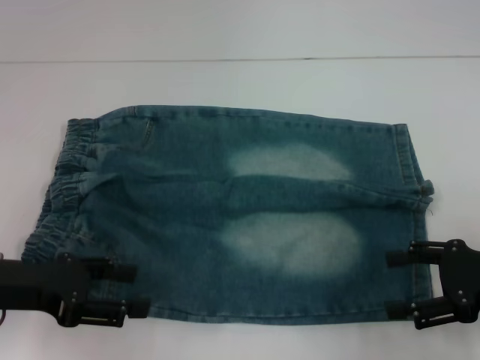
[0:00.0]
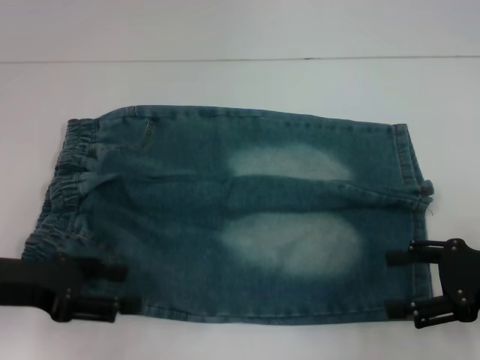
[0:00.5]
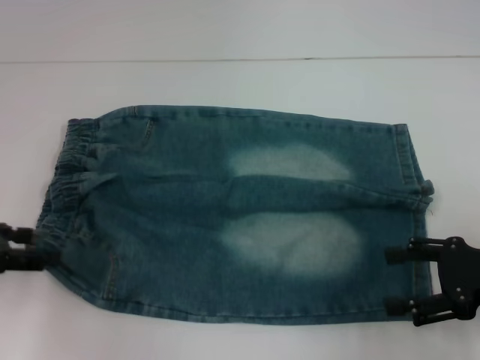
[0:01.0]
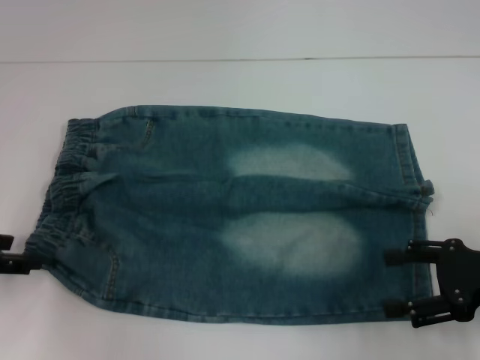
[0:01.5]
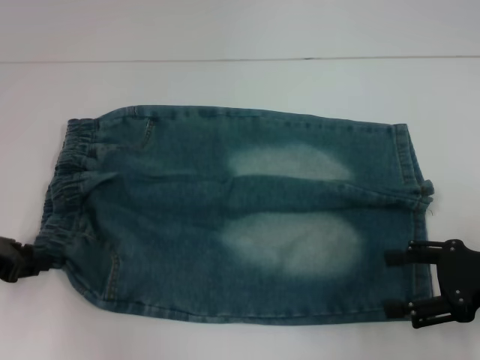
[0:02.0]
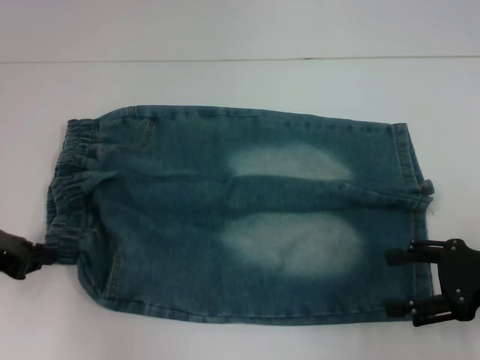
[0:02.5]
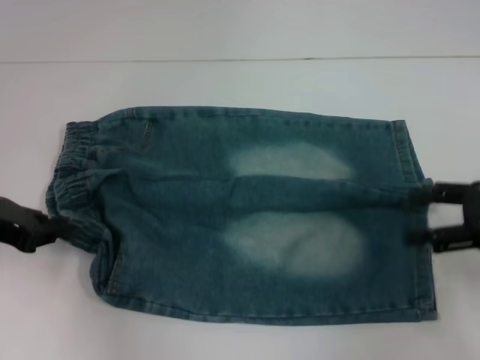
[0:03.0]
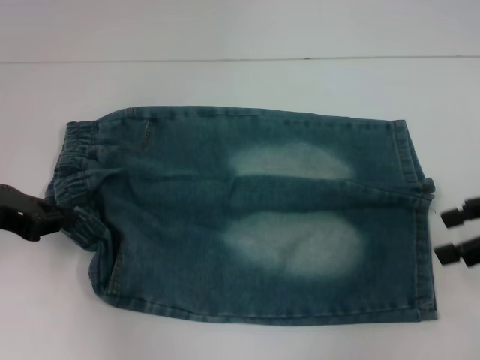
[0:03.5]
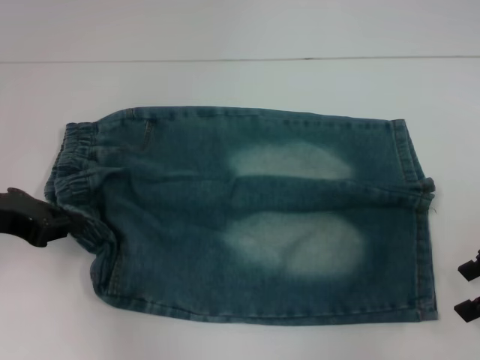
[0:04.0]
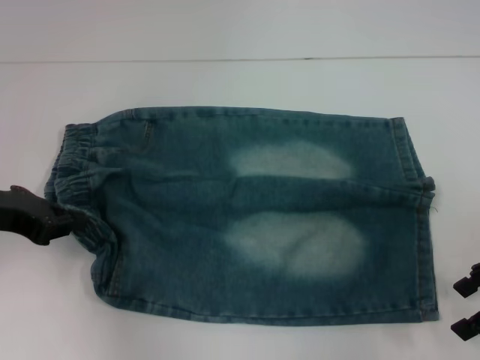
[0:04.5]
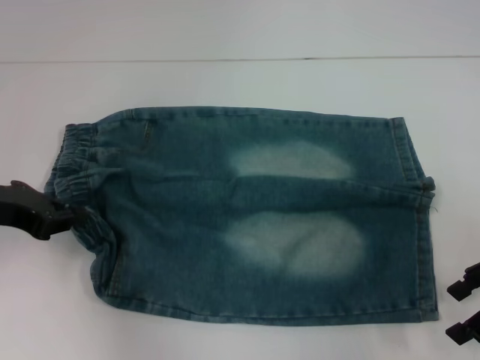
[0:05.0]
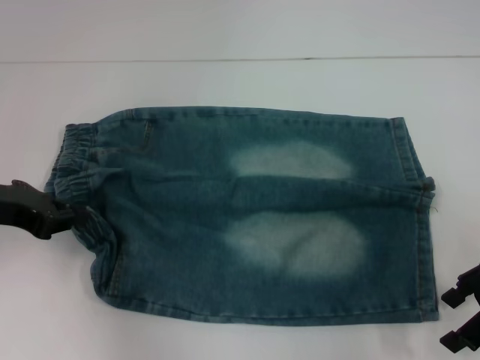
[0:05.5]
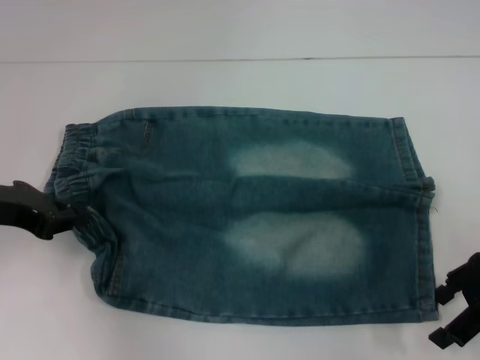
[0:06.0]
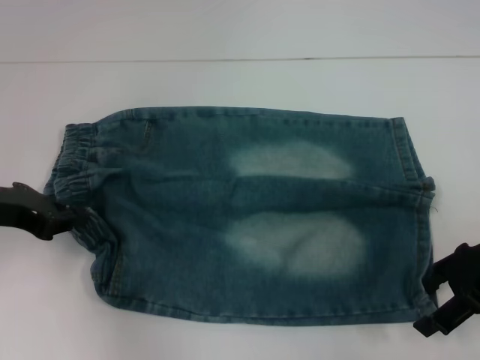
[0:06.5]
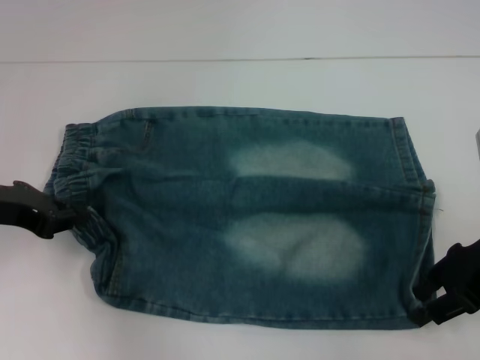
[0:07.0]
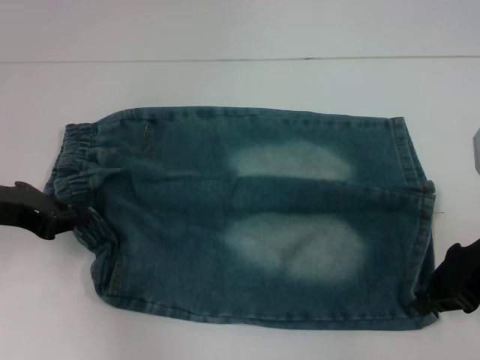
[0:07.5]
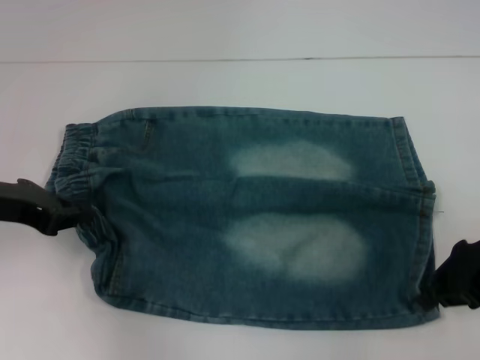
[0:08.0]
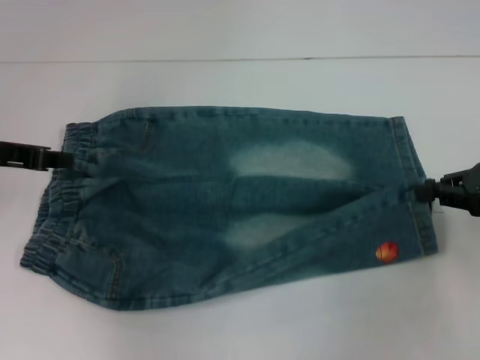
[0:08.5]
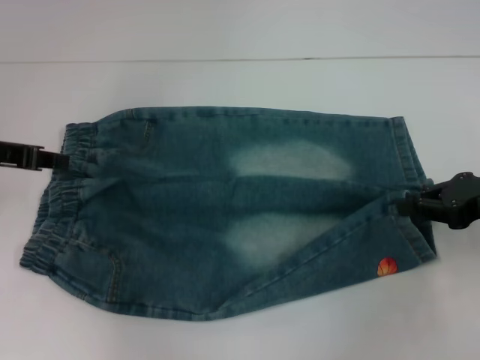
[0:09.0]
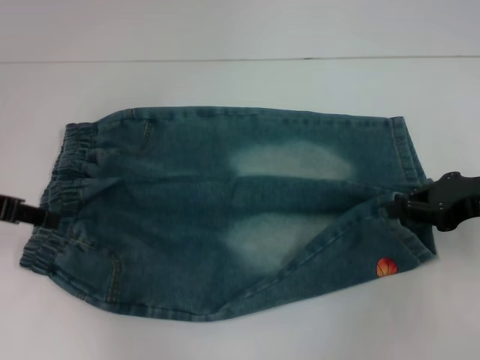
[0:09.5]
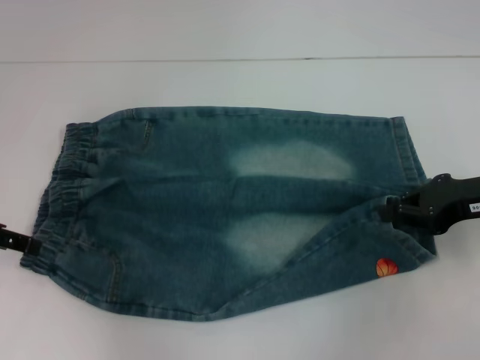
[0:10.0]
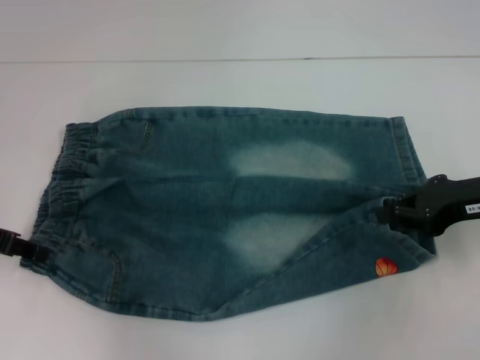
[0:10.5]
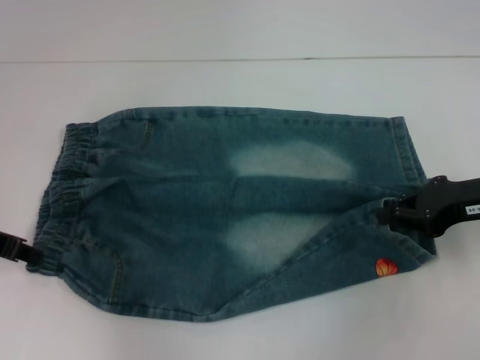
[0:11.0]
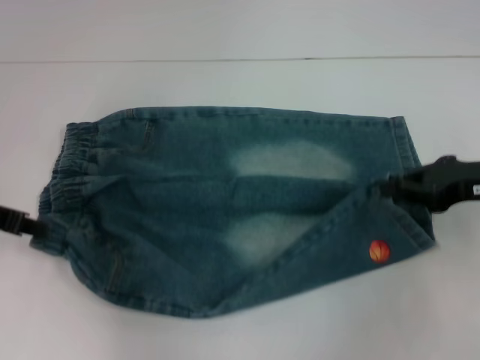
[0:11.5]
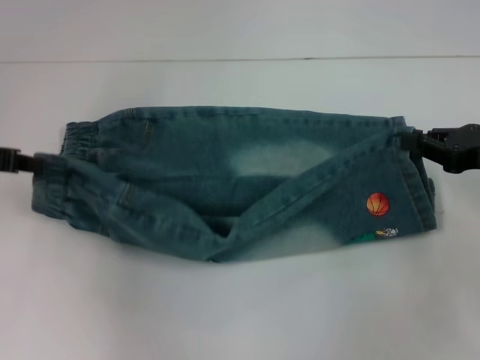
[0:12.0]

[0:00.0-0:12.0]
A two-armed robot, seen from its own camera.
Step, 0:00.0 to 0:02.0: Hold the lower left waistband with your left hand.
Step, 0:02.5 to 0:07.5: Grab the lower right pant leg with your right hand.
0:00.0 to 0:02.0: The left gripper changes place by some 5 cm, and closes.
0:02.0 to 0:04.0: The right gripper is displaced upward by approximately 5 cm. Meanwhile the left gripper shifts by roughly 5 cm, and closes.
0:04.0 to 0:06.0: There are only small adjustments of the grippers.
0:06.0 to 0:08.0: The right gripper closes up.
0:08.0 to 0:10.0: The left gripper opens up.
0:10.0 to 0:12.0: The left gripper closes.

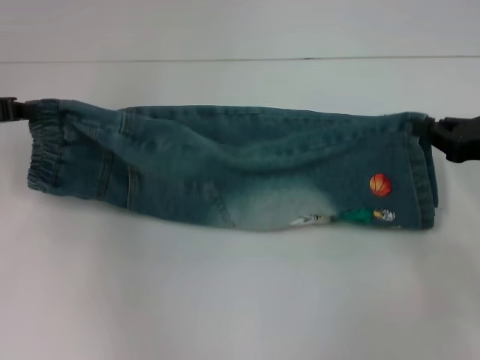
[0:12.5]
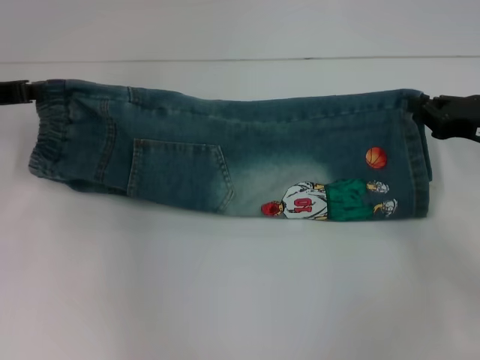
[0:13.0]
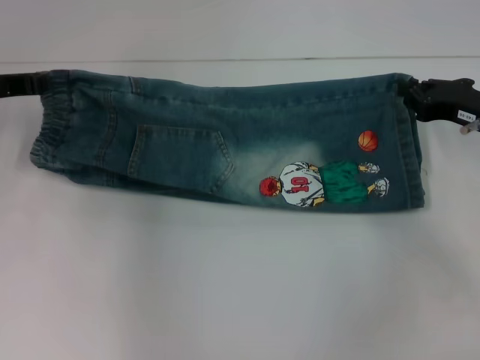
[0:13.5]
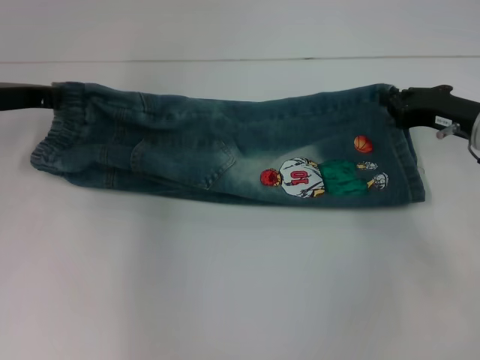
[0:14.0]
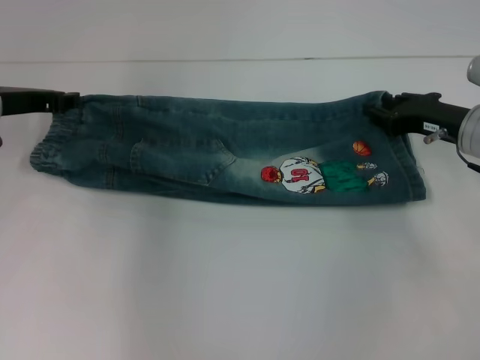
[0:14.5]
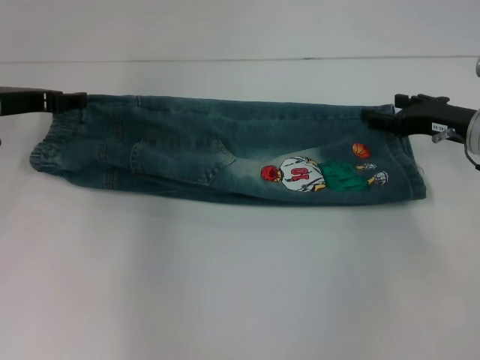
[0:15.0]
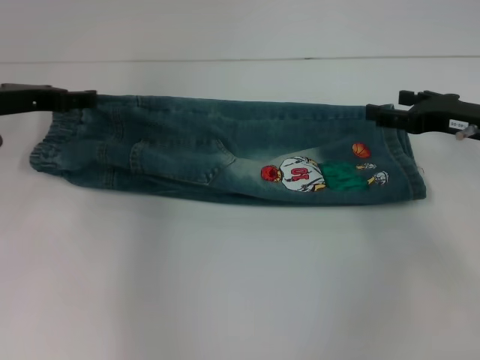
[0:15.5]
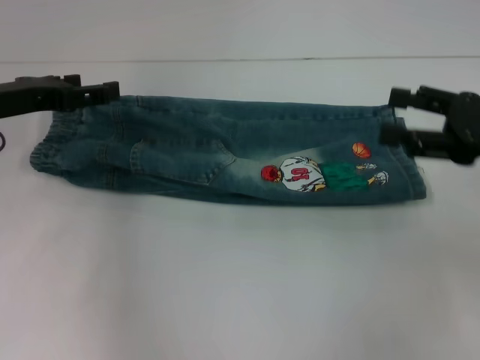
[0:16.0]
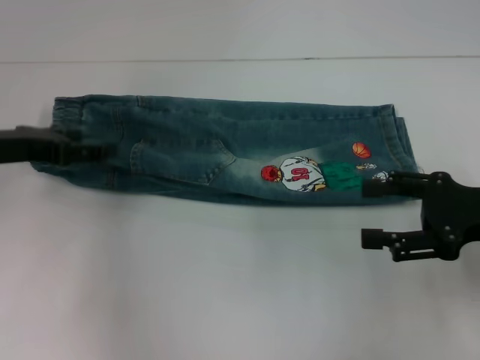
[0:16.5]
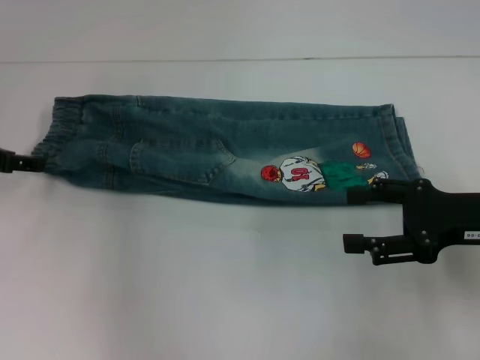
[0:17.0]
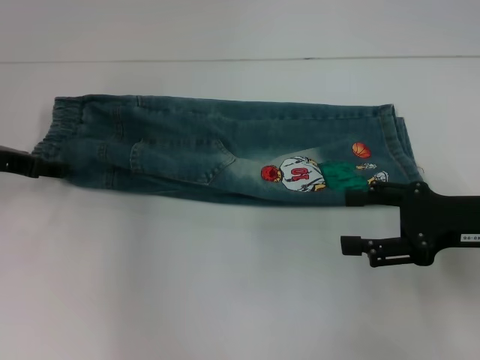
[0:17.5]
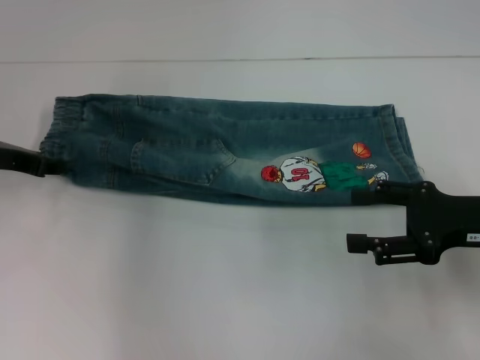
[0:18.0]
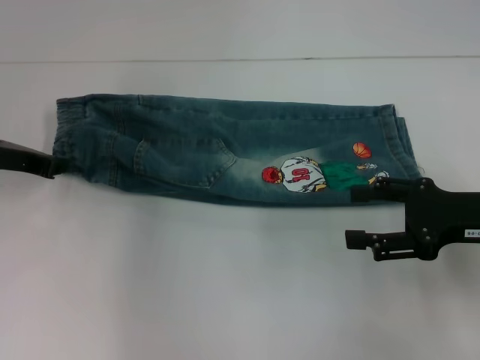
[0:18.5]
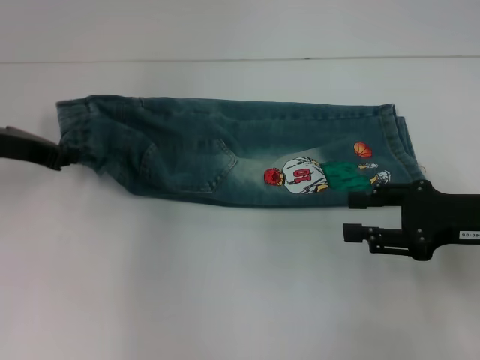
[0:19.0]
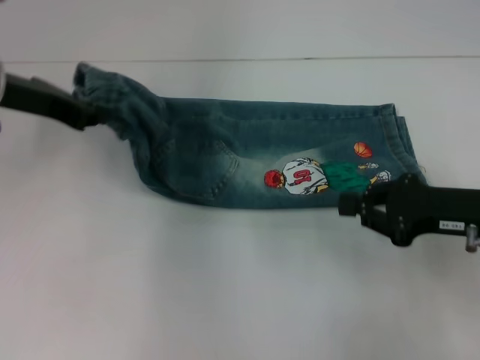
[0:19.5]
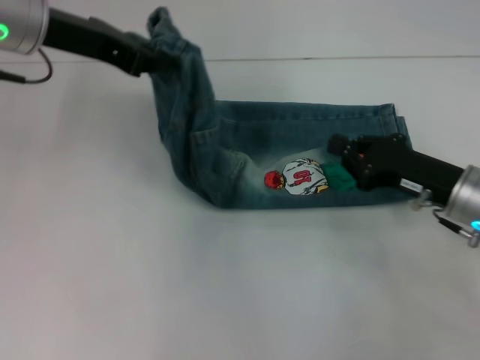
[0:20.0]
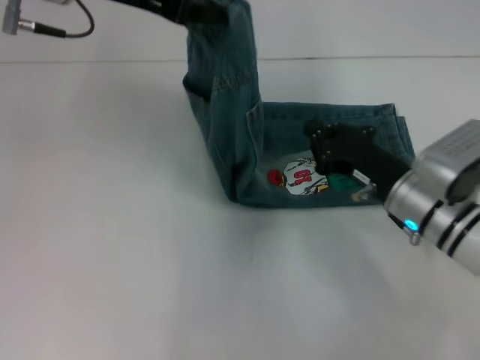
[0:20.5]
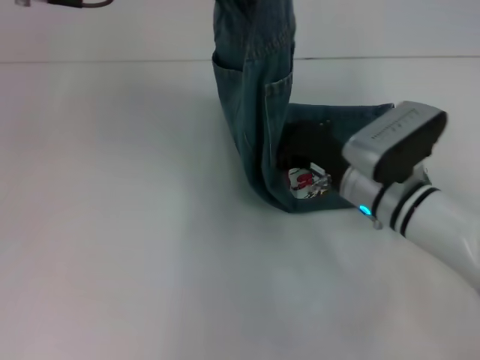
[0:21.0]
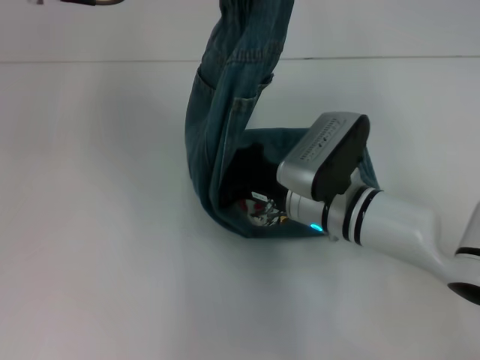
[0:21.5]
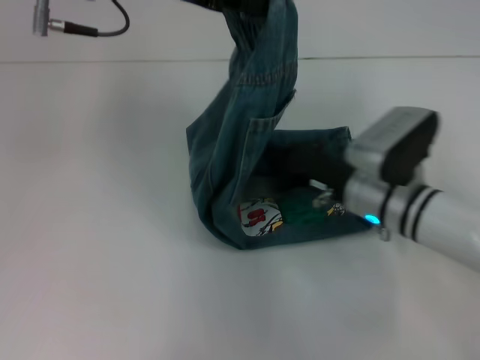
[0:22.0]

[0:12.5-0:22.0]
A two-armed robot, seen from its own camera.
Step, 0:15.0 to 0:18.5: Hold the waistband with your left hand.
Step, 0:19.0 to 0:21.5: Press the middle of the pants with your right hand.
0:12.5 to 0:14.5: The right gripper heads to the left and forward, covering roughly 10 cm, while the left gripper ends up about 5 cm from where it was.
0:14.5 to 0:16.5: The right gripper moves backward, some 10 cm, and opens. The left gripper heads backward, covering approximately 5 cm, and opens up.
0:18.0 to 0:20.0: The right gripper moves roughly 5 cm, and closes its fingers; the left gripper travels upward and to the right by roughly 15 cm, and closes its fingers.
0:20.0 to 0:22.0: The left gripper moves approximately 5 cm, while the right gripper moves to the left, roughly 10 cm.

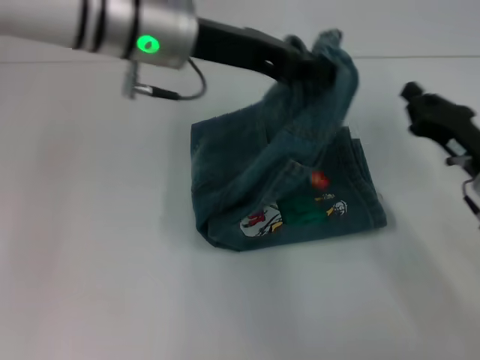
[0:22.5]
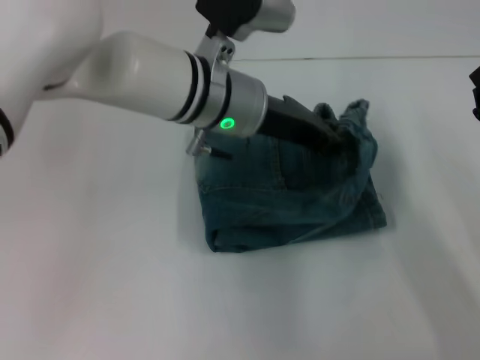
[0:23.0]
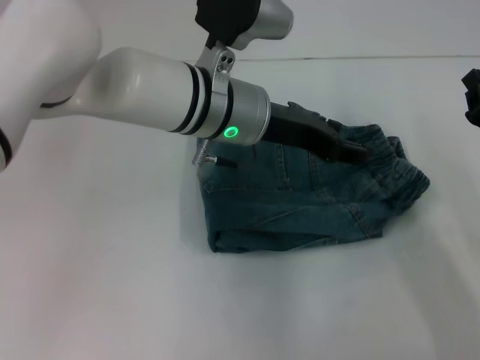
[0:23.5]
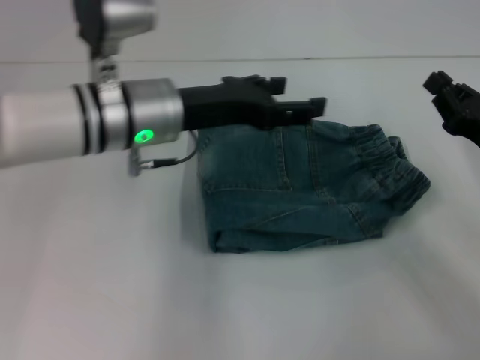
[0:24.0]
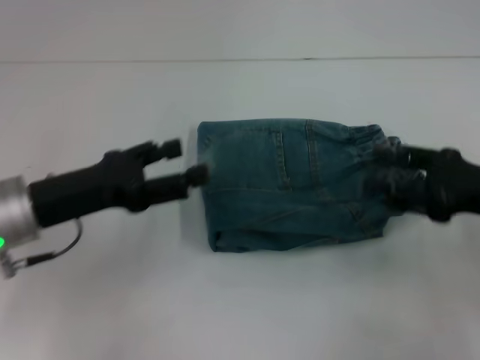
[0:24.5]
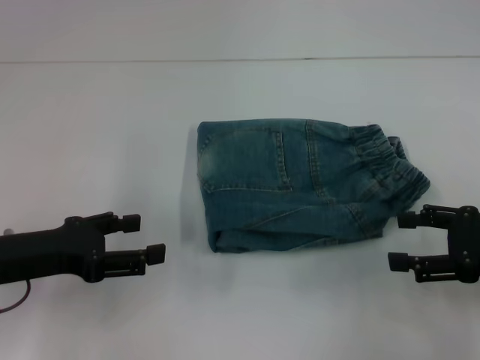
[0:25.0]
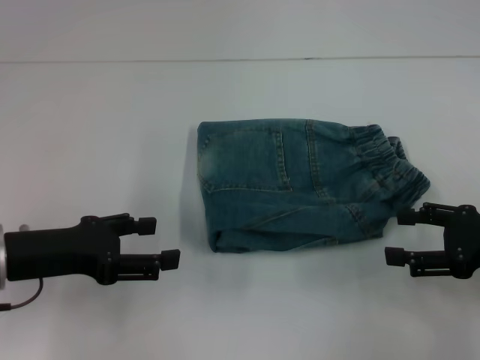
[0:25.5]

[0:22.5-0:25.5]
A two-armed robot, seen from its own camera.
0:22.5 to 0:24.0: The left gripper heads downward, covering approximately 10 cm, and opens up.
0:24.0 to 0:25.5: The right gripper opens up; the left gripper shifts about 20 cm to the left and backward.

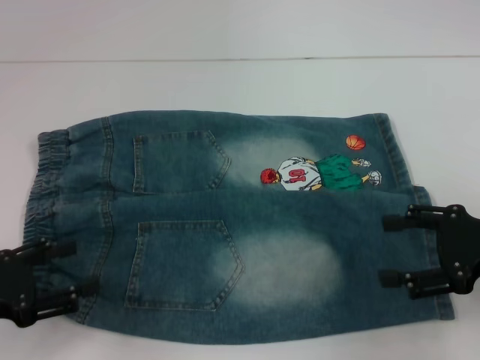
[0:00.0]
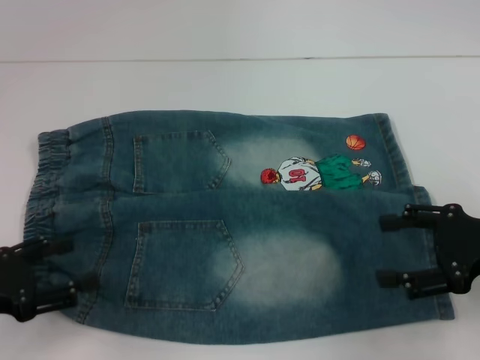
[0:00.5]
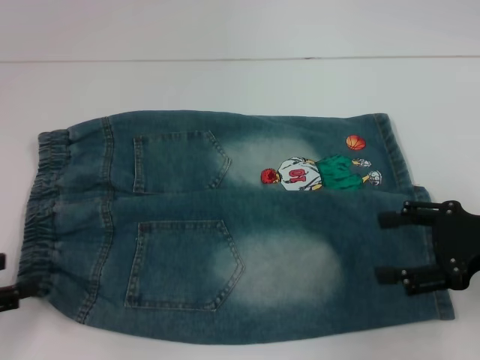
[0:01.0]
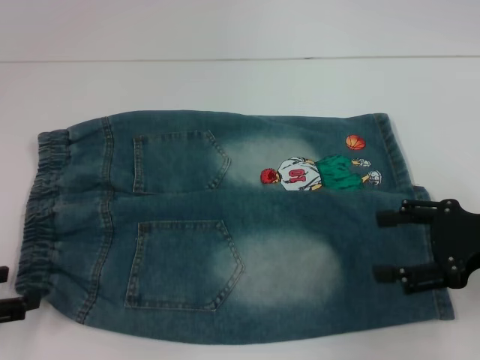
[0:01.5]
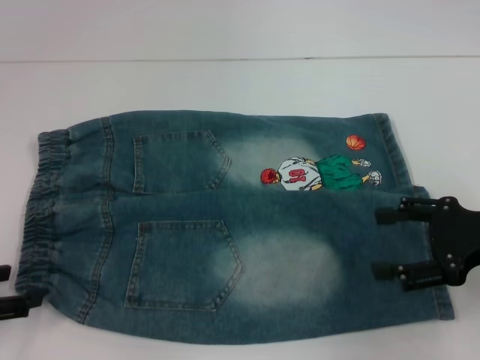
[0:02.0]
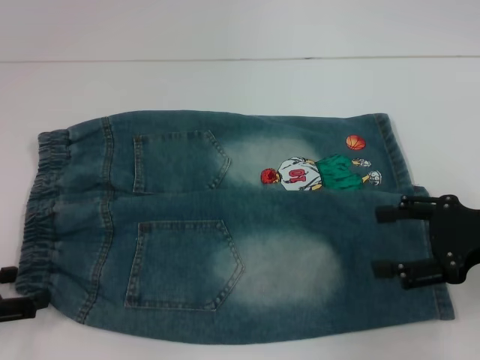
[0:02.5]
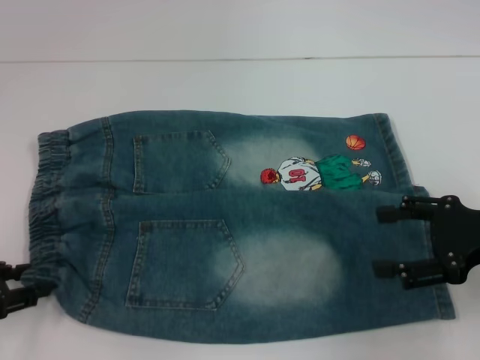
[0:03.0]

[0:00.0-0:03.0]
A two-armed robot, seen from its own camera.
Step, 0:00.0 to 0:02.5: Hold the lower left waistband with your left hand.
0:01.5 to 0:03.0: The grippers move only a little.
